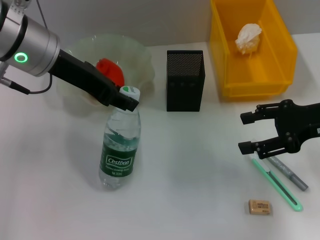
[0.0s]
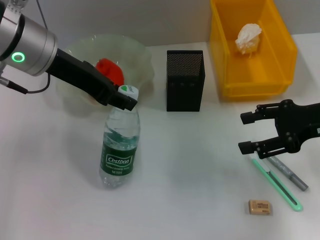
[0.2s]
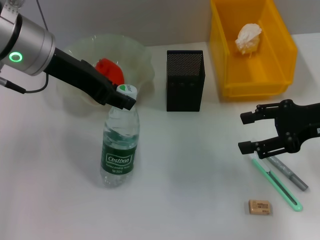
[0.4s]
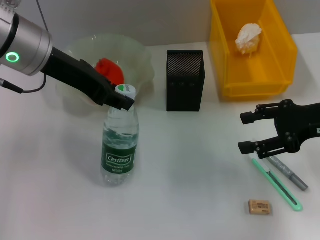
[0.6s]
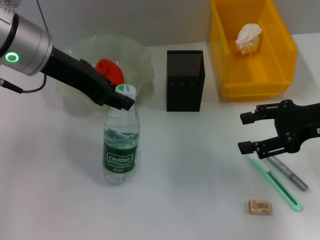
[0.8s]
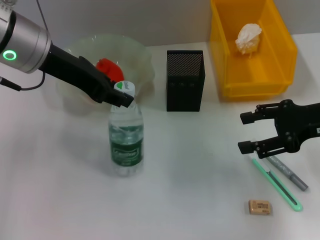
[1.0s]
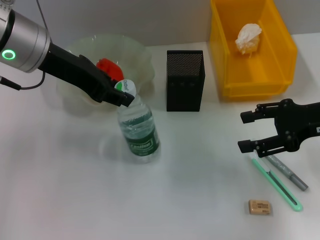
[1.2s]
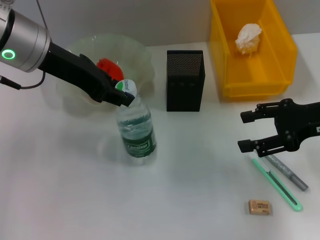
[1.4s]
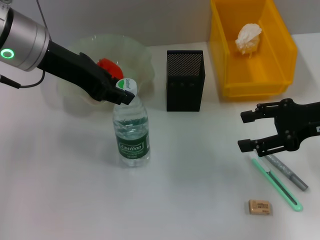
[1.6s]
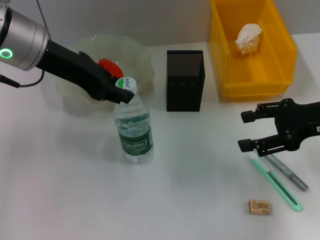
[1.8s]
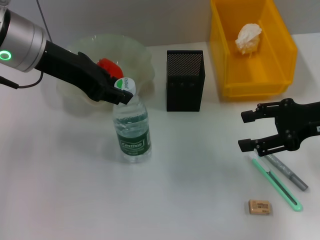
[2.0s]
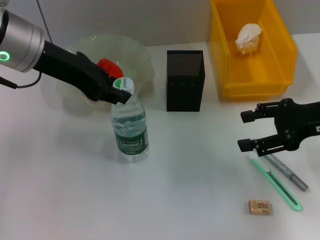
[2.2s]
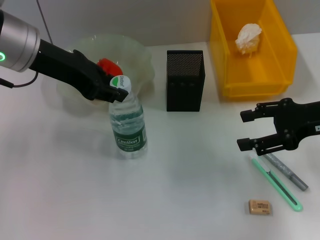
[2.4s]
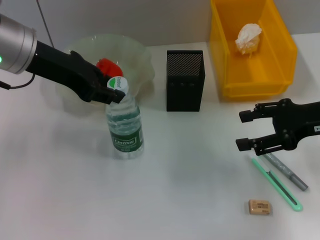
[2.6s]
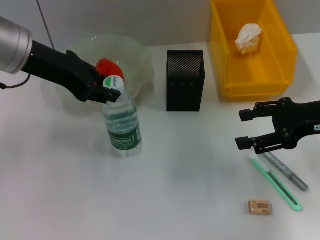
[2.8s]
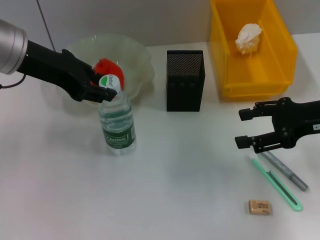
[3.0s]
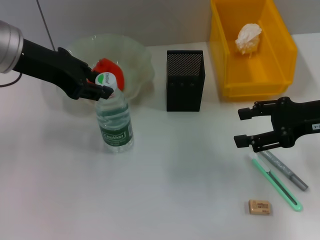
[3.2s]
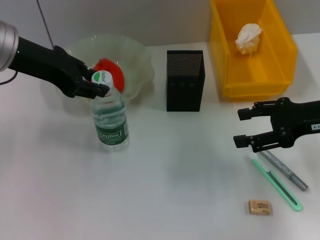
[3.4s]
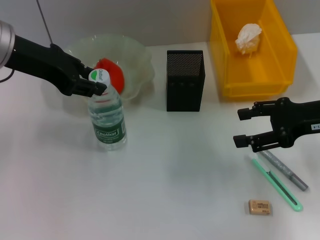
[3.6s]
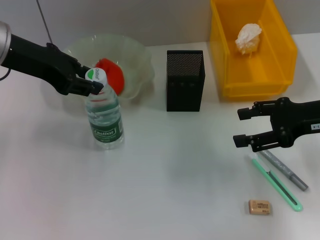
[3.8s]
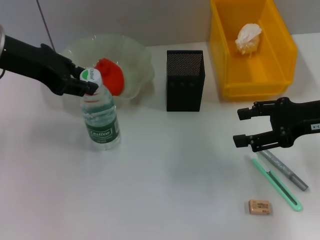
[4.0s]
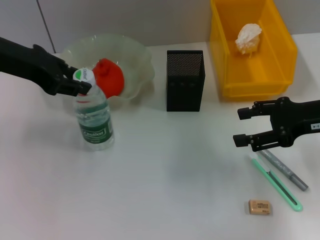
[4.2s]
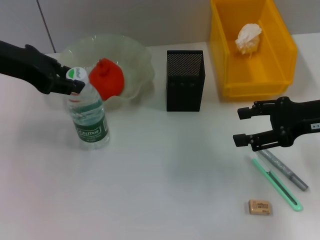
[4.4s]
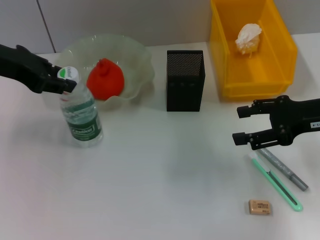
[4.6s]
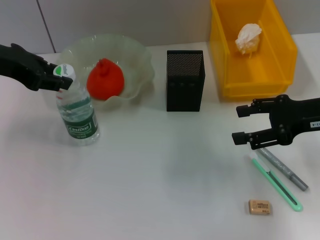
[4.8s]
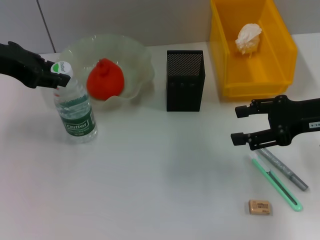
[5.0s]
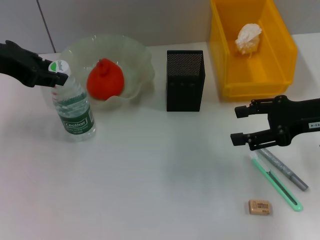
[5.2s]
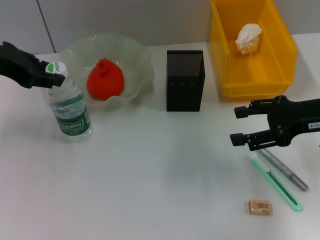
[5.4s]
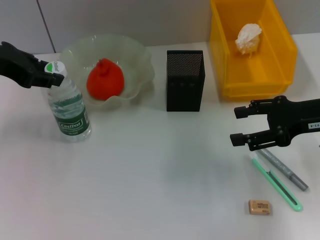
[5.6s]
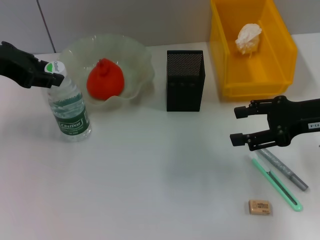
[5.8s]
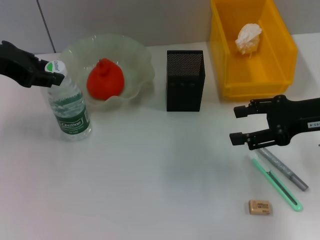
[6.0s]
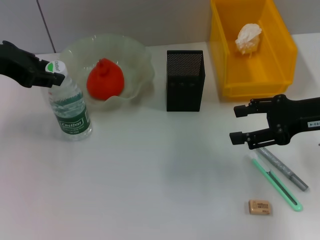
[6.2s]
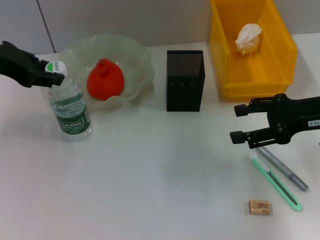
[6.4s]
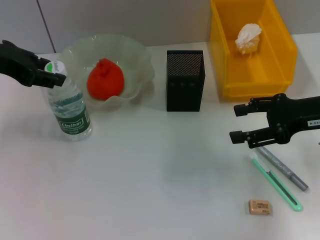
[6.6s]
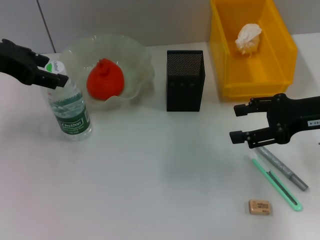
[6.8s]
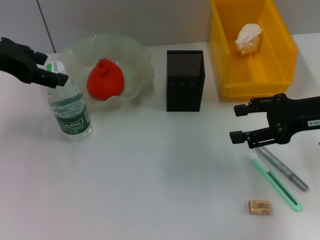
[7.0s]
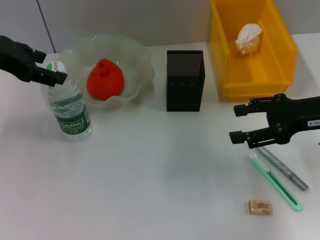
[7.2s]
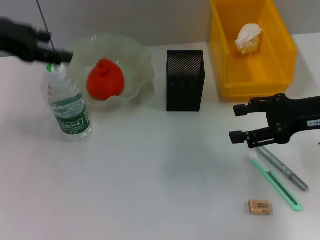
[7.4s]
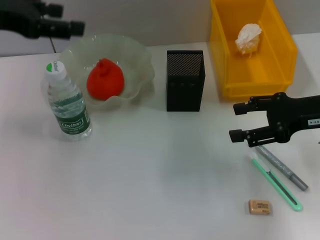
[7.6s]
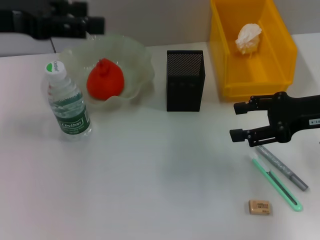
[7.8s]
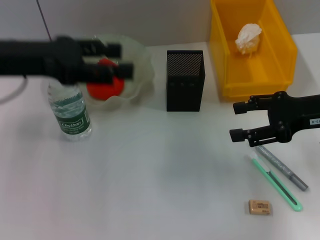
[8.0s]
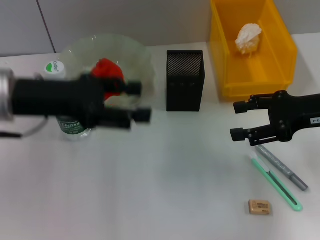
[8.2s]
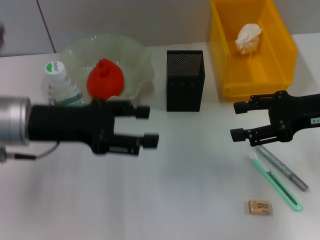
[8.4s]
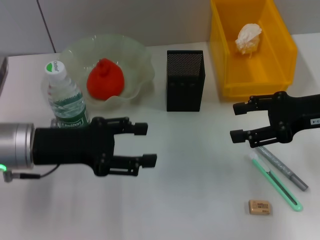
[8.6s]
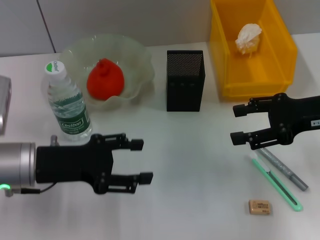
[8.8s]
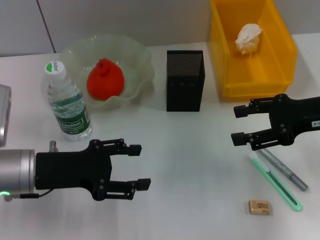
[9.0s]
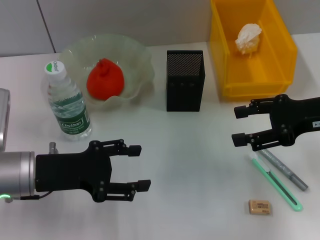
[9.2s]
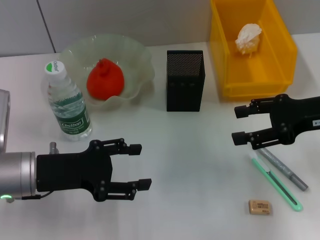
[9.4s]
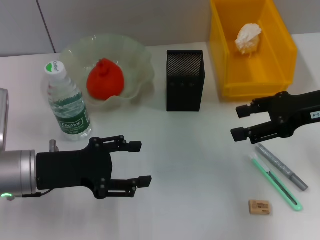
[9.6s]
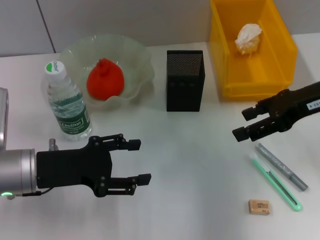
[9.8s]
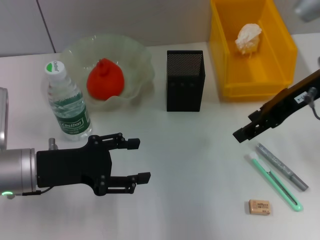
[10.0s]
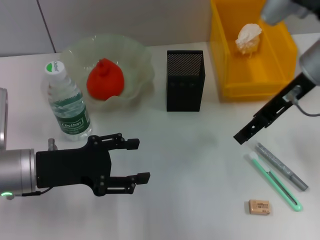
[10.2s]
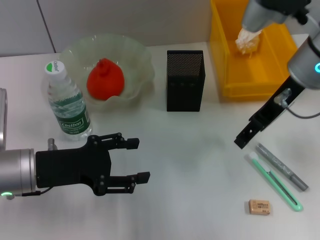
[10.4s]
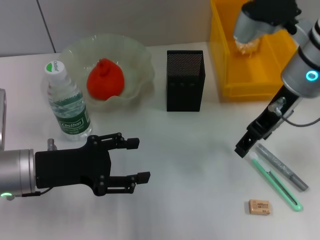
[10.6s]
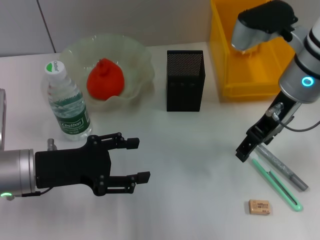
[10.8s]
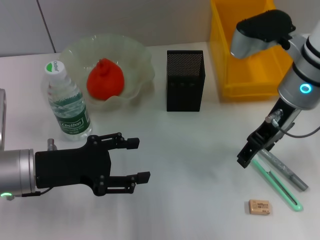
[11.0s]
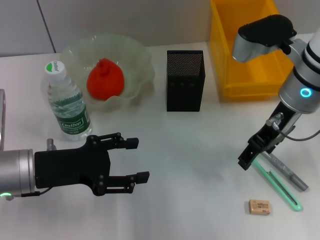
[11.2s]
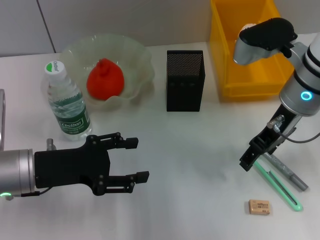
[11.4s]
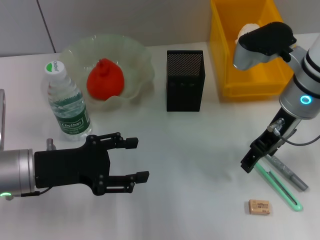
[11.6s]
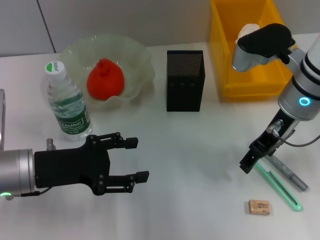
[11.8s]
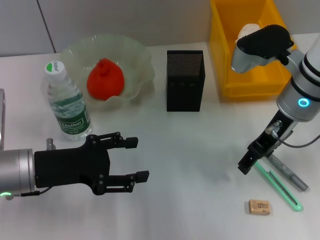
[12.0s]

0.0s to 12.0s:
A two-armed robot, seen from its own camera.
Step, 0.0s to 7.0s: Place the water bottle on the table with the left hand.
0.0s to 3.0s: The grippers stay close to where they were, moving slightly.
3.0s to 4.4s: The grippers stay close to where they were, moving slightly.
4.4s to 6.0s: There are only small adjustments of the grippers.
6.0s to 7.6s: The left gripper opens.
7.6s to 9.0s: The left gripper goes approximately 20 cm downward and backward.
9.0s to 10.4s: The right gripper moves to the left, upward and forward, some 15 cm.
10.4s to 12.0s: The right gripper is displaced downward by about 5 cm.

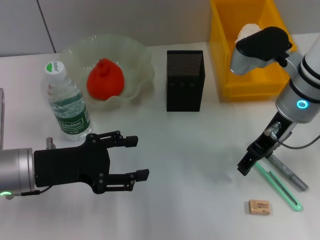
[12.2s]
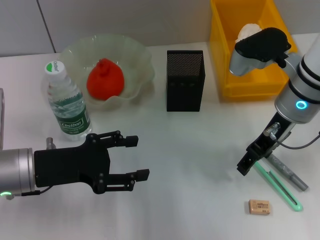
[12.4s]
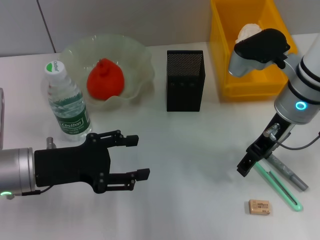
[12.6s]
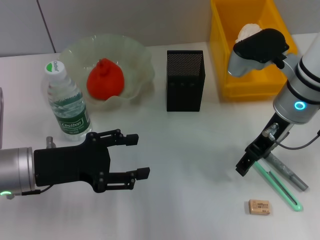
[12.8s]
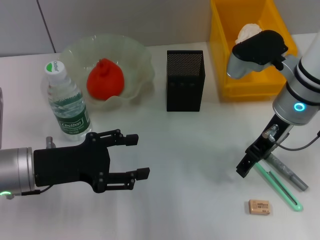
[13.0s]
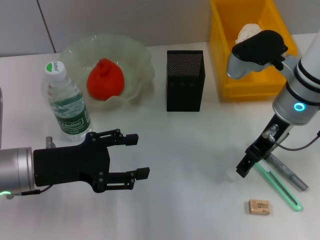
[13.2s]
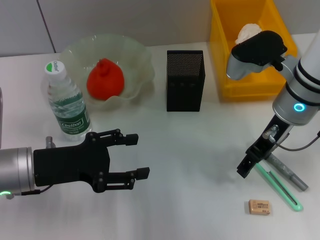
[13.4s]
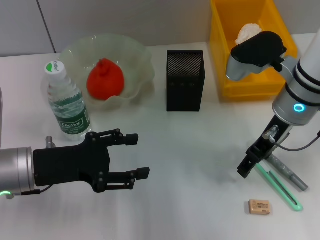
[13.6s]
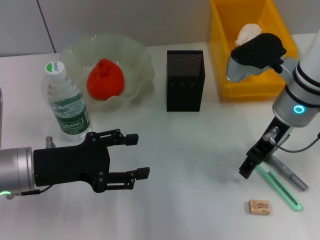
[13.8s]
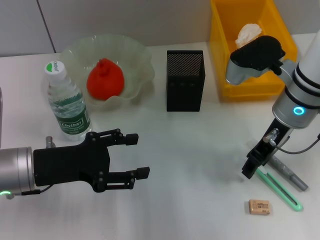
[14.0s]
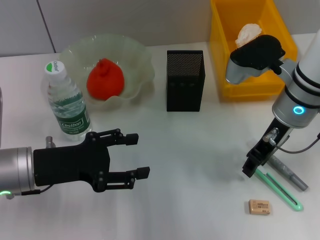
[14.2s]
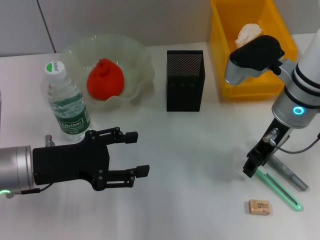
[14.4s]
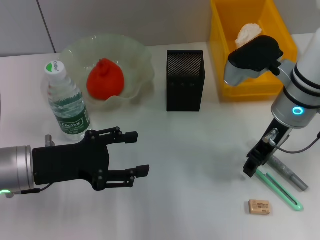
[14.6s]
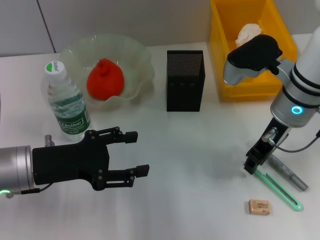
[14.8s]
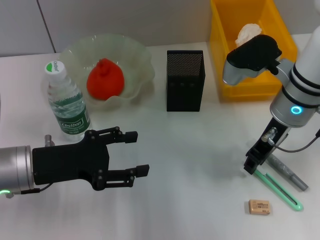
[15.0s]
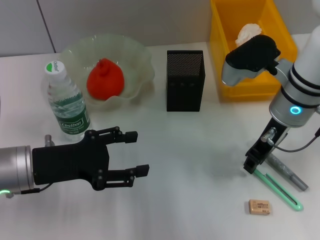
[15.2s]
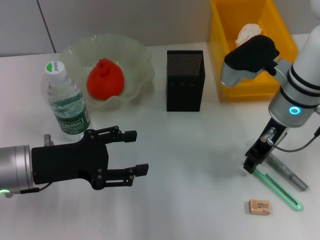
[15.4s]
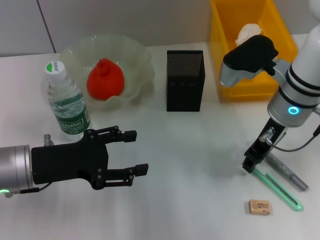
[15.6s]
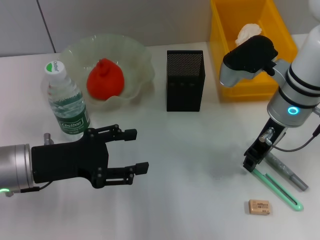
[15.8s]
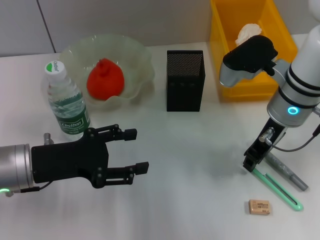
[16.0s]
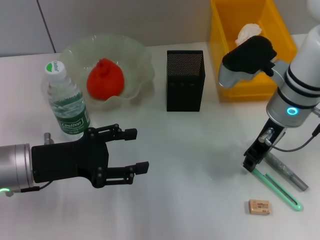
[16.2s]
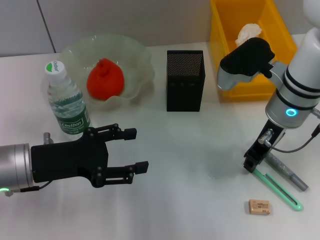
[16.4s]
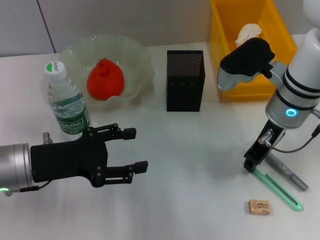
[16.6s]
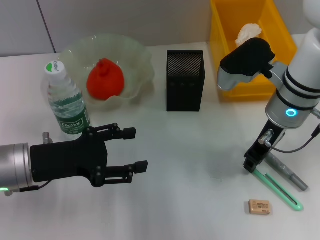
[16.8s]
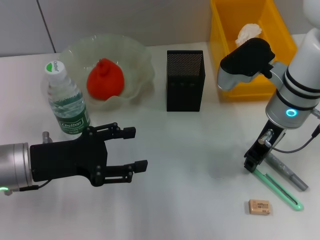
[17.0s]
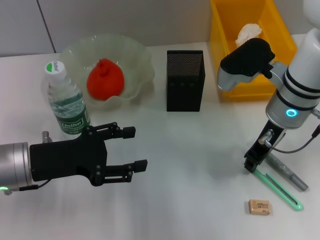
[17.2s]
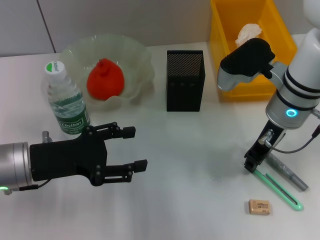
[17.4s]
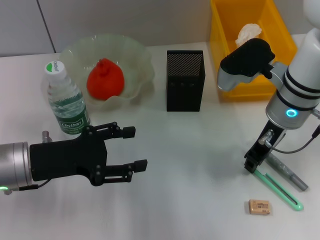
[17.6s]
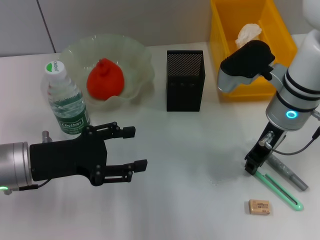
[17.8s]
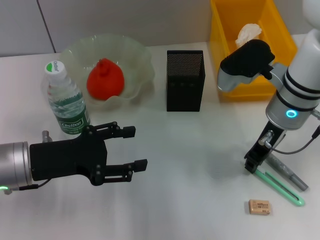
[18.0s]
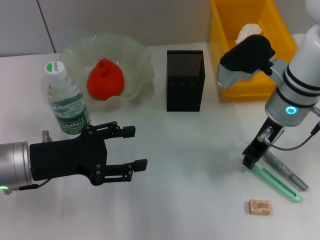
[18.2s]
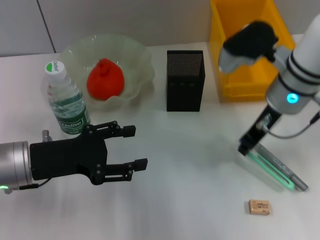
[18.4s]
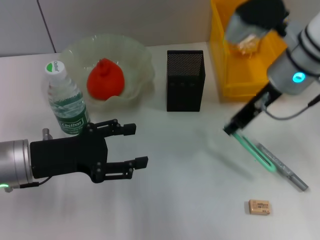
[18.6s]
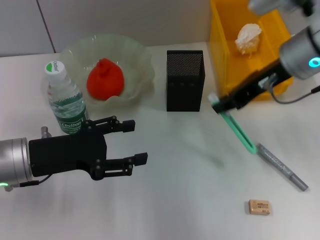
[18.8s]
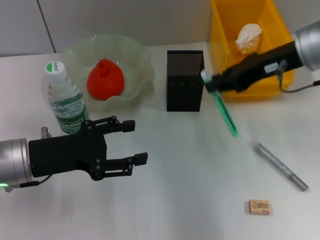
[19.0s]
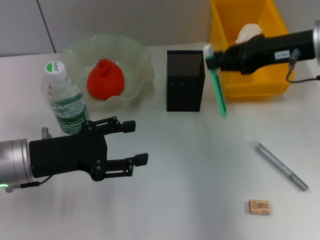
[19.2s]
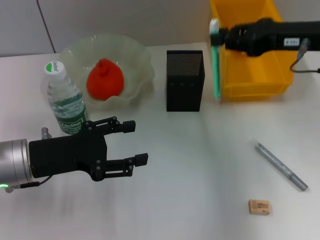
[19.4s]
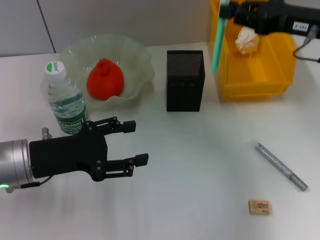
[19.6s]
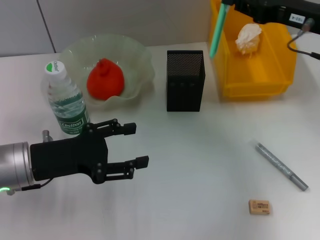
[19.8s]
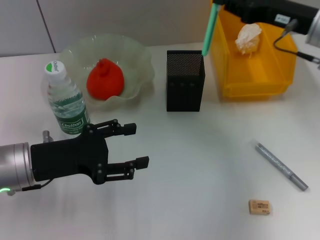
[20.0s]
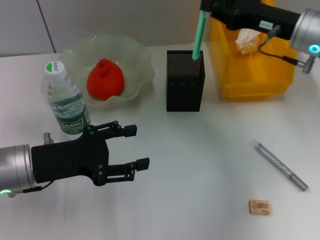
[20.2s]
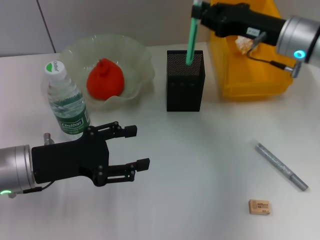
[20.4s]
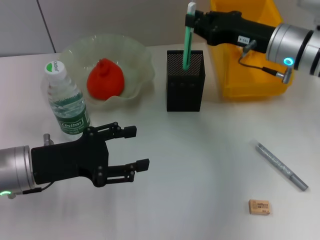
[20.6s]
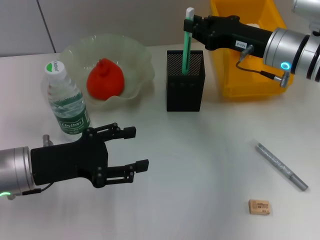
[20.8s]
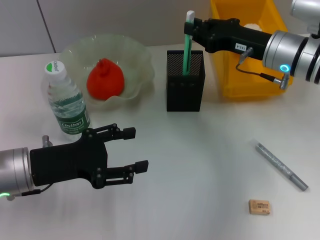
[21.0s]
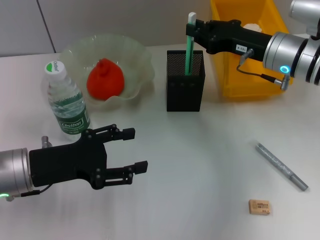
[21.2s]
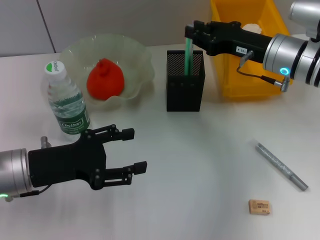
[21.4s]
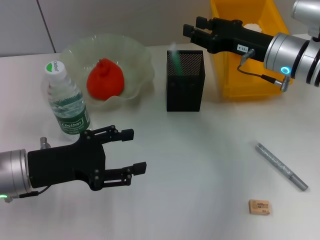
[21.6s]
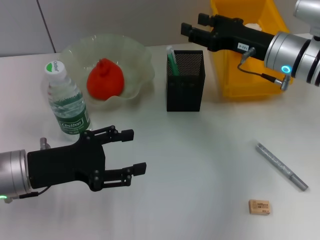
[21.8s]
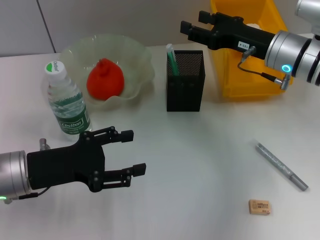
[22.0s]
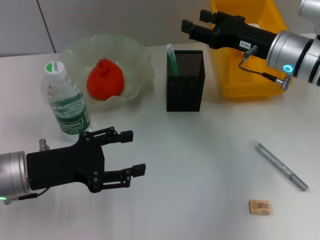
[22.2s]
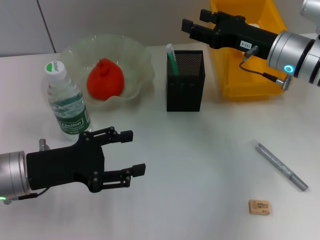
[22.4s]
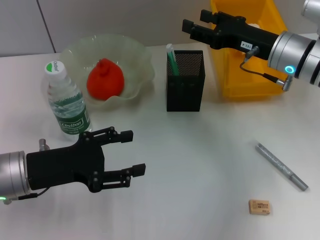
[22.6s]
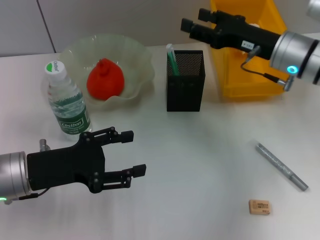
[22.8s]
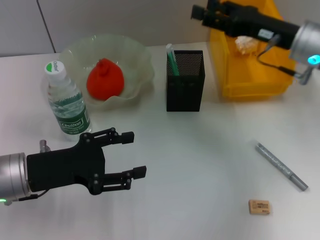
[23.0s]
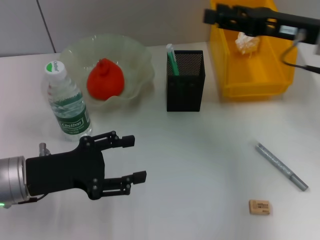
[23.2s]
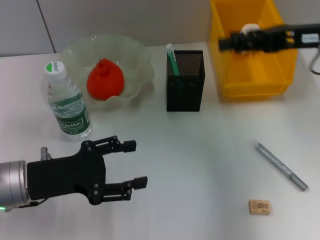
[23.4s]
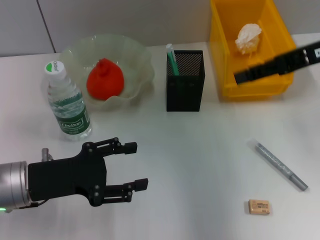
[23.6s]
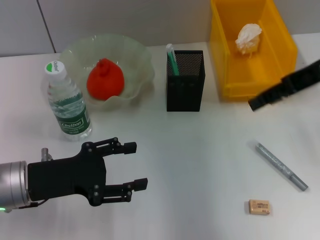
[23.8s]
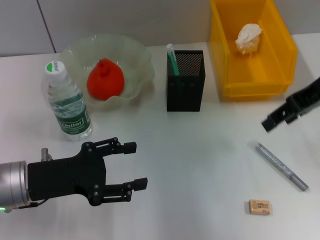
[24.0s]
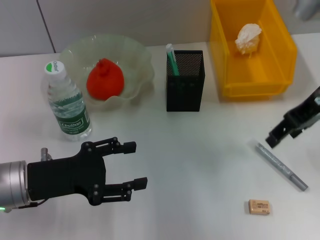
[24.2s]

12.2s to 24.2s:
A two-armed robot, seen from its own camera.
Step, 12.2s to 17.8s: Grab the blue utility knife with the right hand.
Step, 18.0s to 21.8s: Place the blue utility knife into the pen holder with the right hand.
12.2s to 13.8s: Both grippers stay about where they are.
13.8s to 15.2s: The right gripper closes.
15.2s to 18.2s: Both grippers stay about where they are.
18.2s to 19.8s: The right gripper travels to the right by about 10 cm.
19.8s to 21.2s: The right gripper shifts approximately 10 cm downward and to the left.
21.2s to 22.6s: The right gripper opens up.
22.6s to 24.2s: The right gripper heads upward, covering roughly 10 cm.
